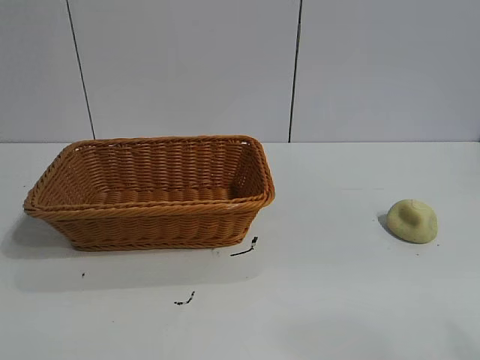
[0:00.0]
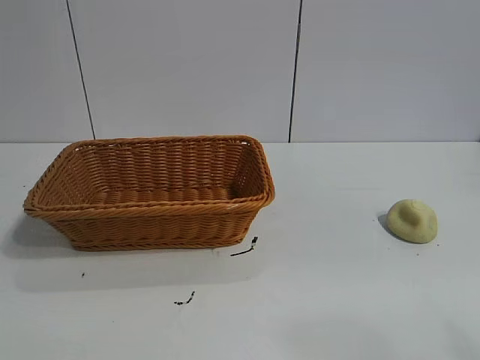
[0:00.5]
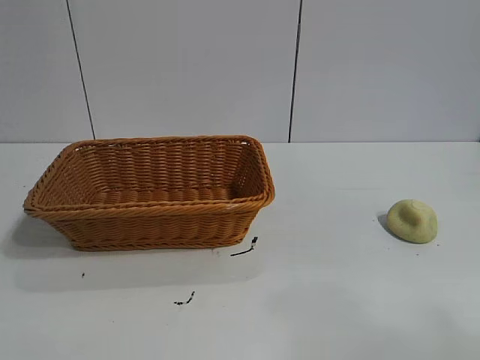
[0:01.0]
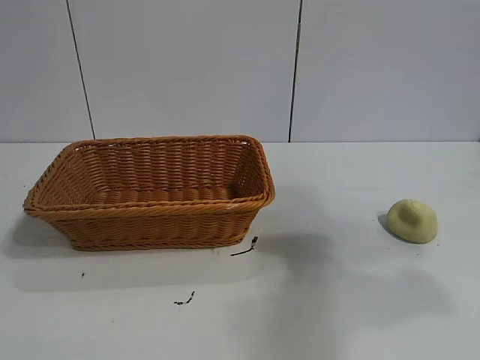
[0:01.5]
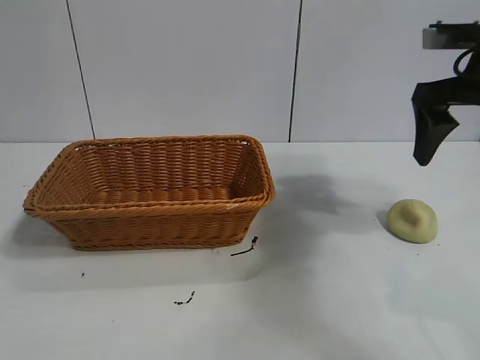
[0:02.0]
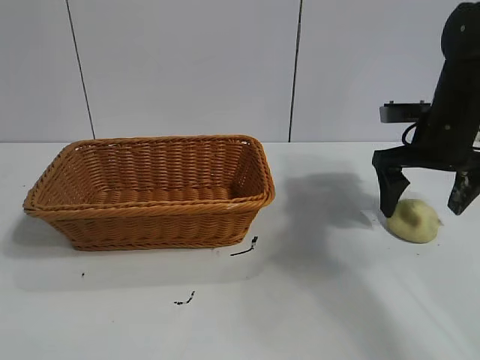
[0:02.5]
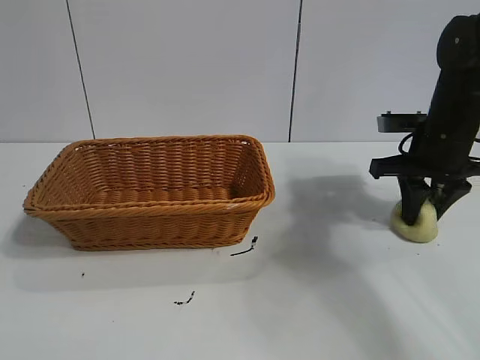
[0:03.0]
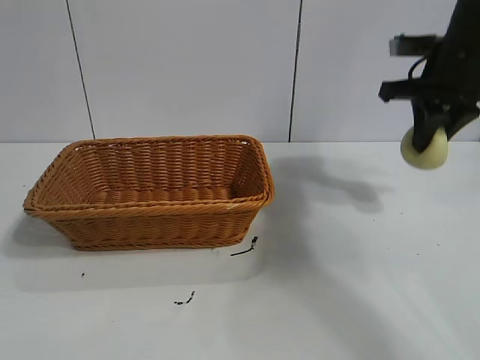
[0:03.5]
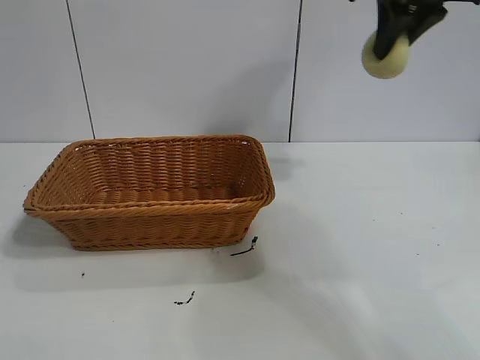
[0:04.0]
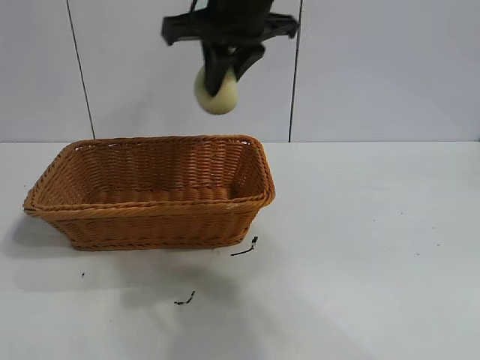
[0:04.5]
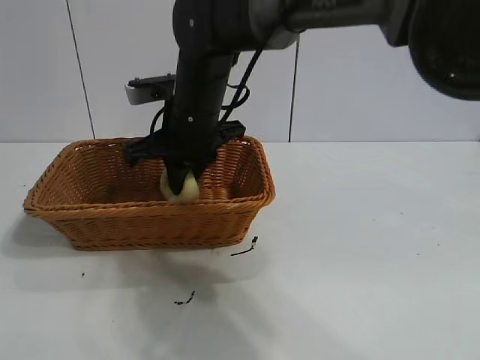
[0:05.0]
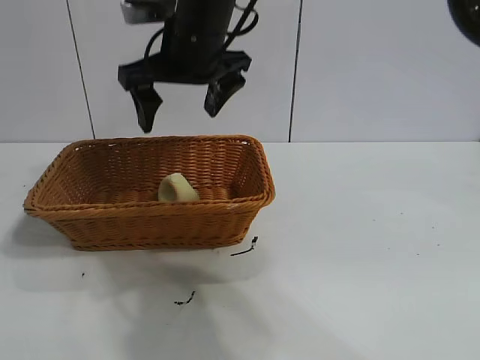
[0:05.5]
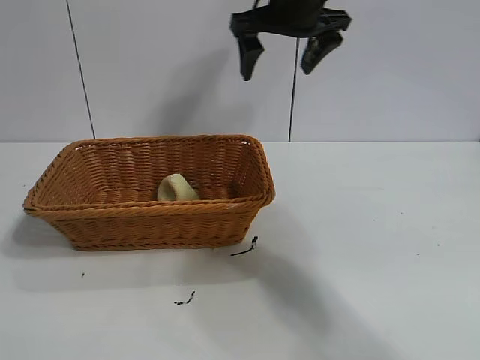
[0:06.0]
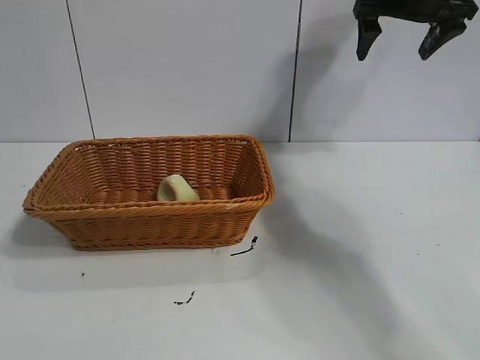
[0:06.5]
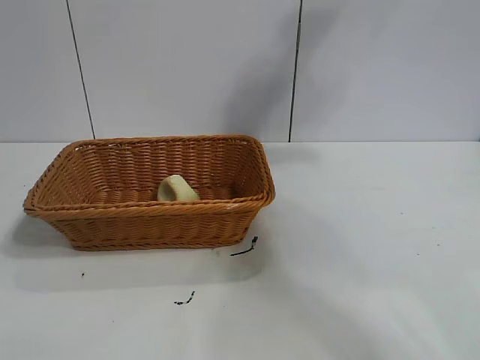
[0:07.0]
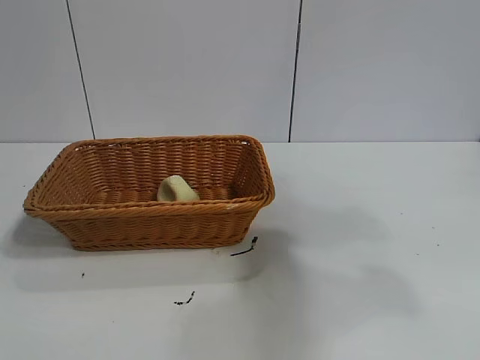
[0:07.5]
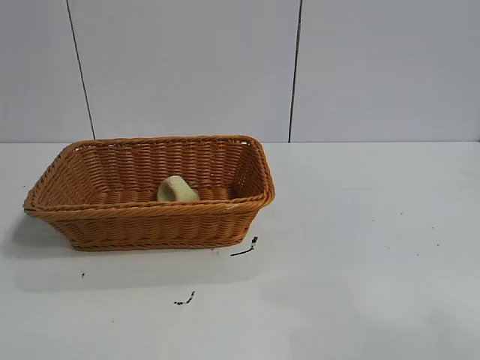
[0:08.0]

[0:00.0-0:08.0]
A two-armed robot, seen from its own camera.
Task of the whole recording: pick up the egg yolk pastry and put it into the basket.
Step, 0:01.0 to 0:03.0: Grasp egg yolk pastry with right gripper.
Step, 0:03.5 to 0:05.0: Place the egg yolk pastry in the basket with right gripper.
